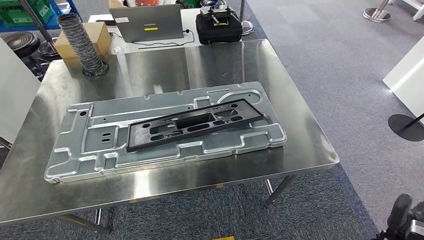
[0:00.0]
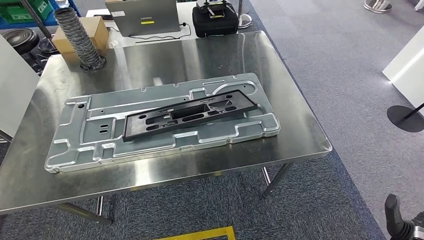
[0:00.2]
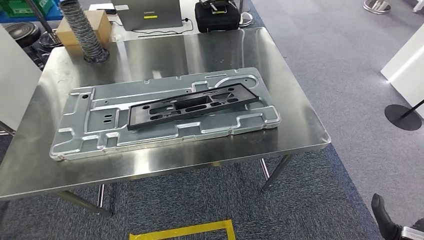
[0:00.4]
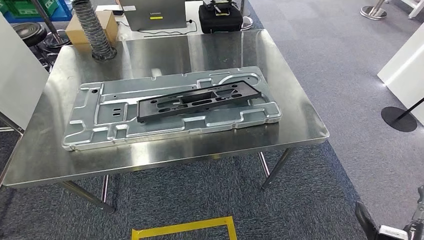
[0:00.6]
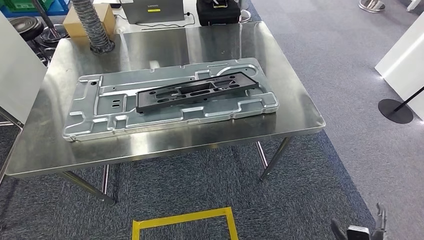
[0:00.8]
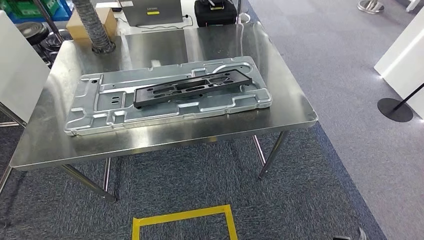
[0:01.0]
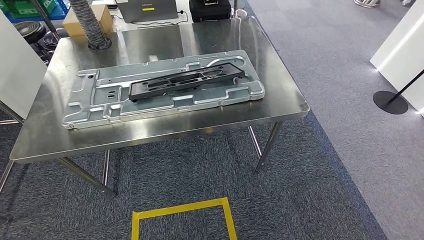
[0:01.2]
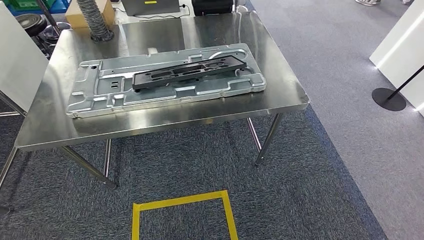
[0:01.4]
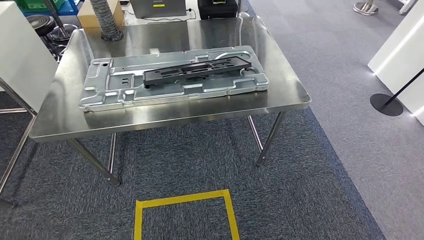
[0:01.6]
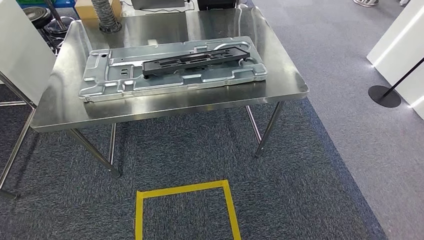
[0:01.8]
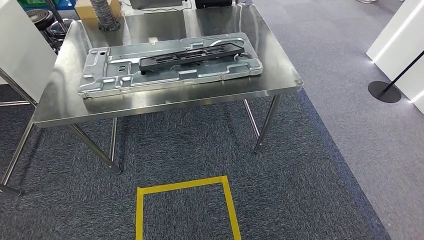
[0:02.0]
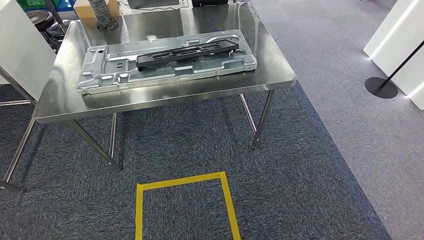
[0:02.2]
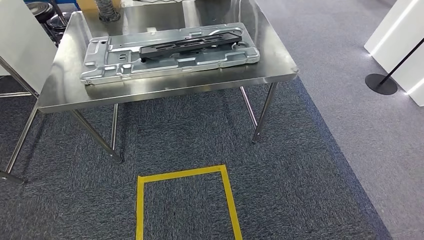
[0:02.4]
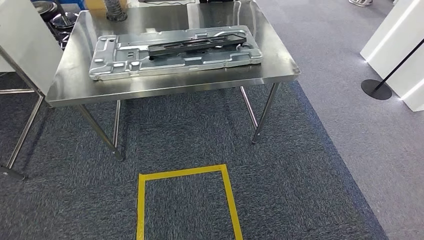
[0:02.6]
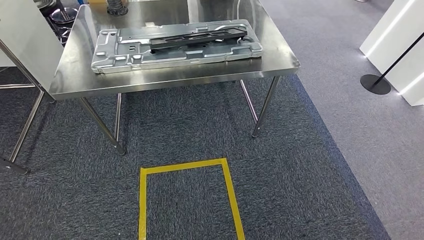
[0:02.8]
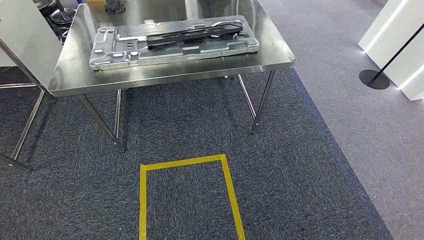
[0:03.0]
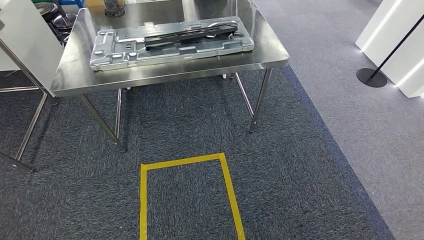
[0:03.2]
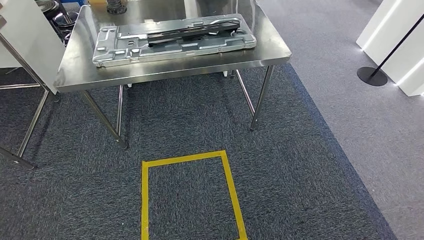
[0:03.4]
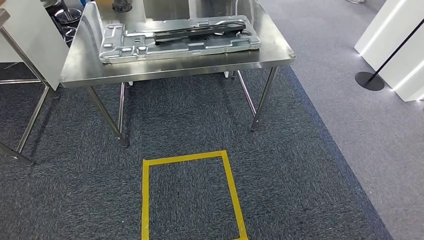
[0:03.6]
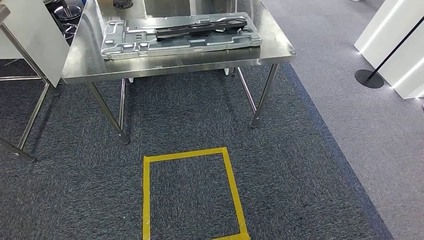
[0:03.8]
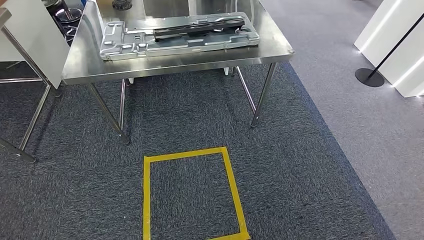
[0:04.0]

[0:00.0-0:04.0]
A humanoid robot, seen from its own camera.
Step, 0:00.2 to 0:03.8: Return to the initial position at the workbench.
